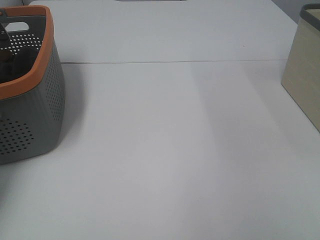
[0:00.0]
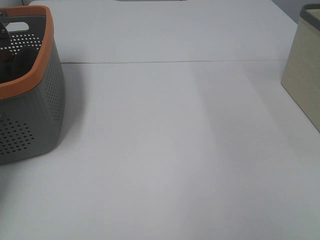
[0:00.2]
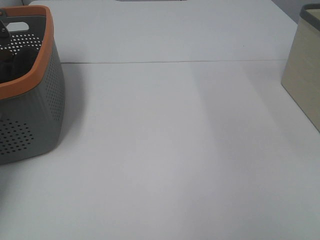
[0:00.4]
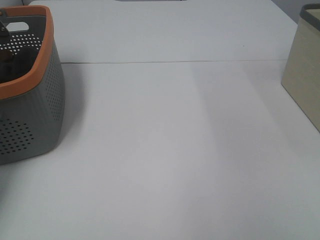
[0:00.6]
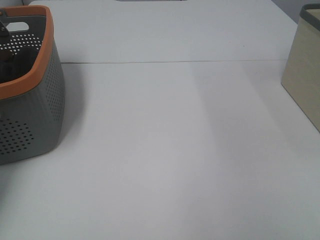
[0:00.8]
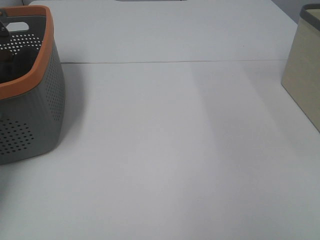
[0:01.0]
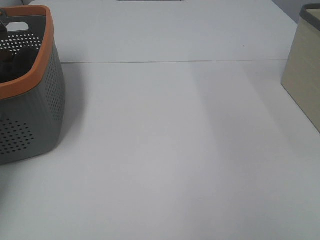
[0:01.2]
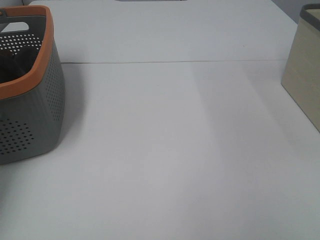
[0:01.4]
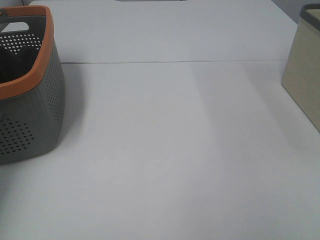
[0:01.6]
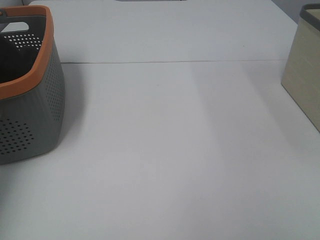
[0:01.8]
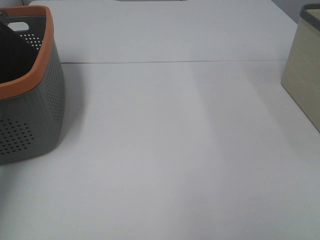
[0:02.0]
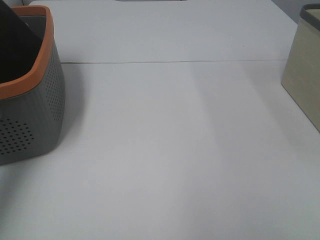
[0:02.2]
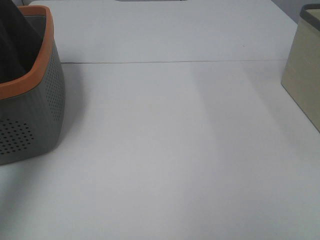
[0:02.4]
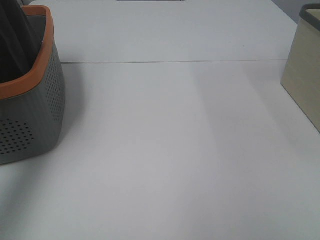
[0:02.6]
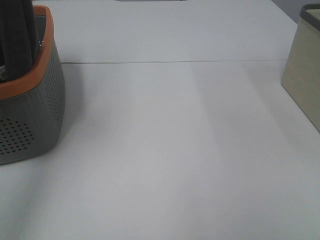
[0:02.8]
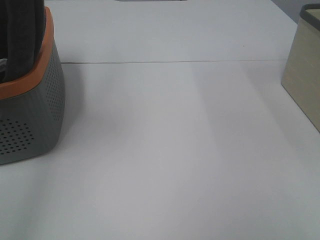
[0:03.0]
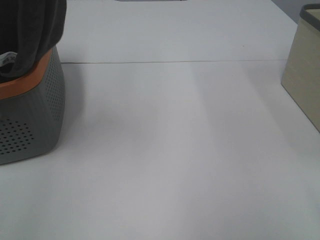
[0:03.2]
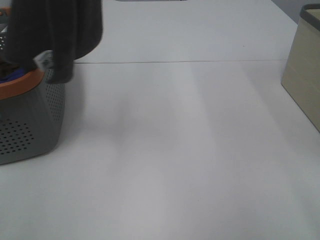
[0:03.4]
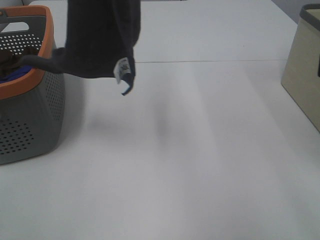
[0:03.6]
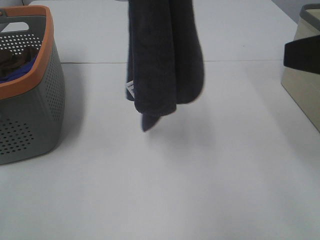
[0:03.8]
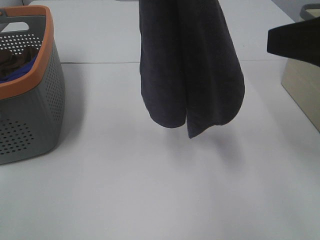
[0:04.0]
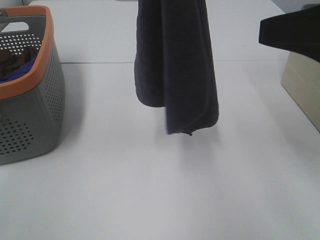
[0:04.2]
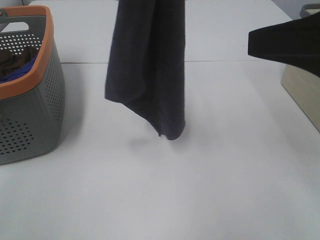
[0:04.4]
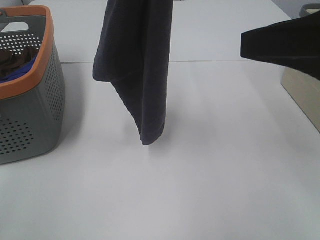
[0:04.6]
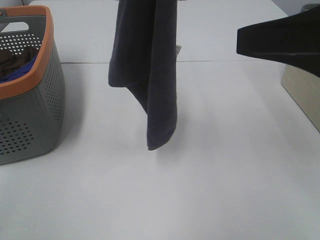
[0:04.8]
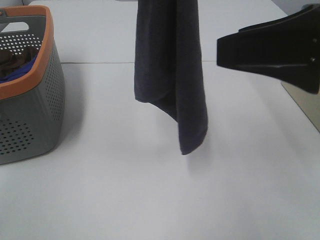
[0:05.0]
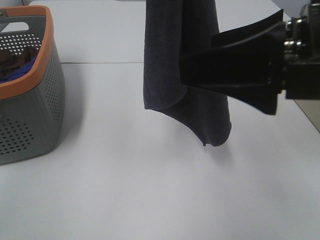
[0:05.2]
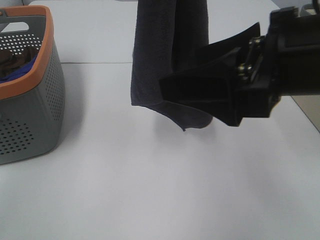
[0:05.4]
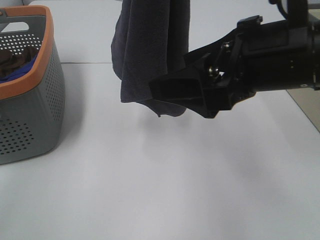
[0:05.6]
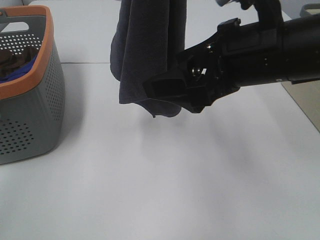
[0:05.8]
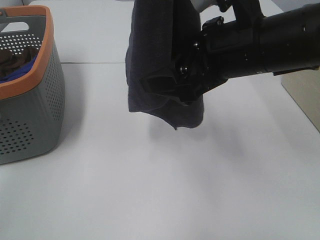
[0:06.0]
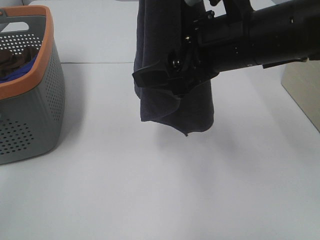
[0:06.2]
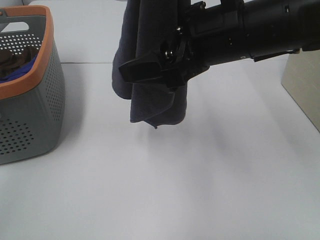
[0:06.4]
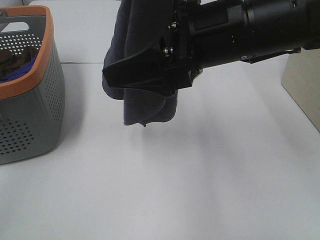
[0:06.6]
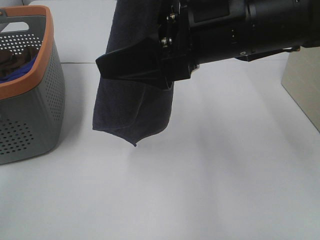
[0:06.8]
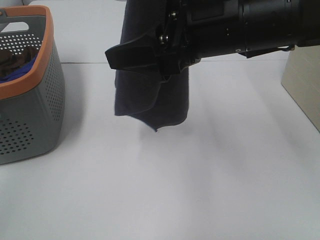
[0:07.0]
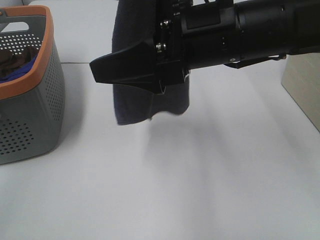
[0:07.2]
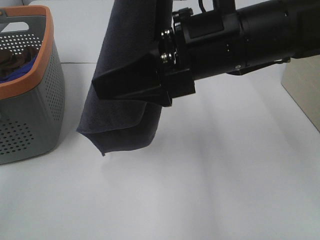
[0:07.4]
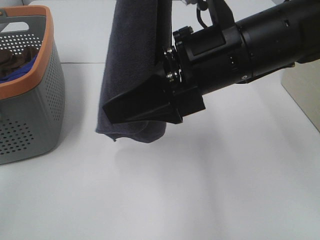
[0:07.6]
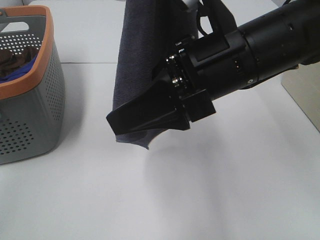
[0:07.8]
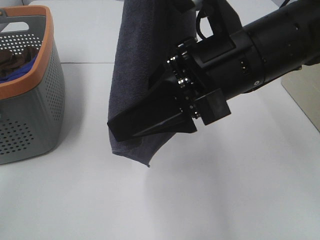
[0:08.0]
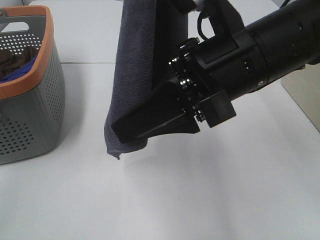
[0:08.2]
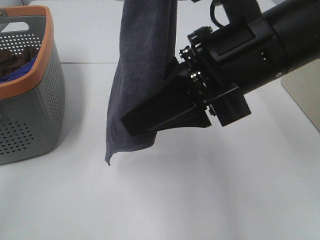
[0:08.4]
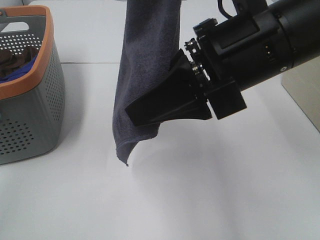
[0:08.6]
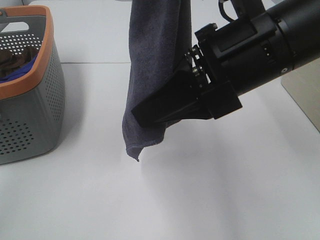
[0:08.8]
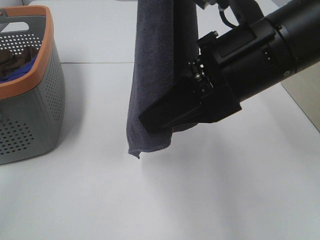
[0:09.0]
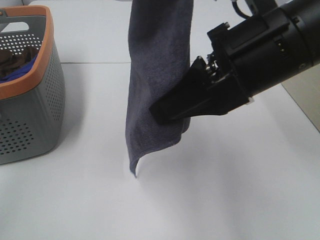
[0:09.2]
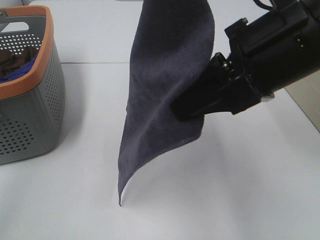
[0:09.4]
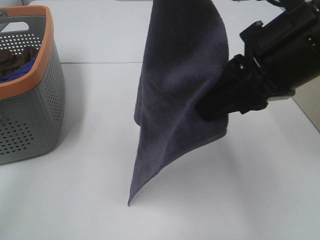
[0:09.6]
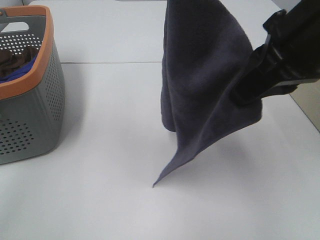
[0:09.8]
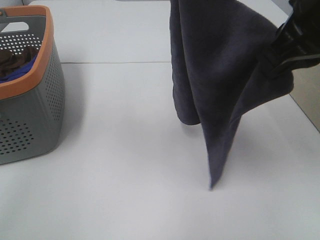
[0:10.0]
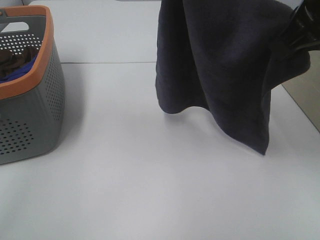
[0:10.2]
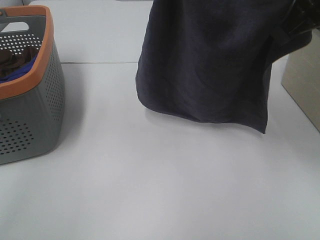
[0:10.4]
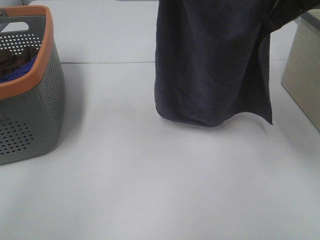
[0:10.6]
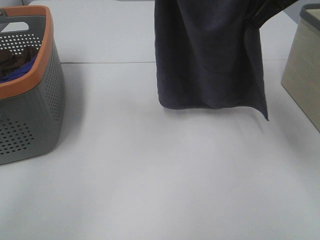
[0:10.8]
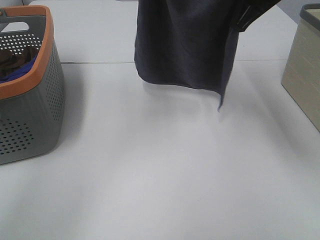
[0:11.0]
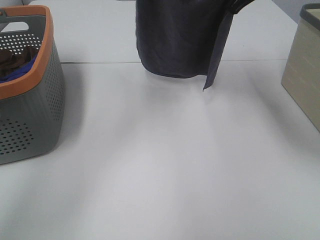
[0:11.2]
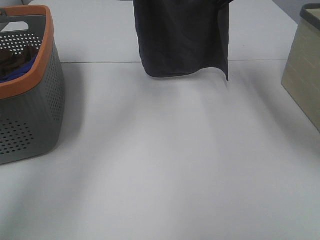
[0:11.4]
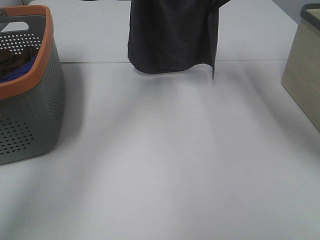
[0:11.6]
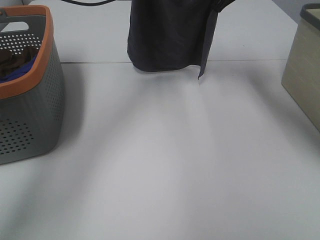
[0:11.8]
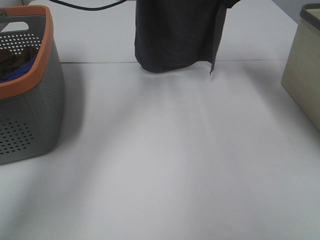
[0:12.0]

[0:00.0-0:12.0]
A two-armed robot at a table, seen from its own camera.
Task of the whole recording: Remove the towel and place it.
Step, 0:02.0 to 0:07.8: Right hand: grab a corner of the grey towel and straighten it.
Step, 0:08.0 to 0:10.6: Right hand: spread the grey towel flat on the table.
Step, 0:08.0 to 0:11.0: Left hand: spread the grey towel flat on the table.
0:01.6 to 0:03.0: The left gripper shifts about 30 cm upward, to the right and backward.
0:03.0 to 0:04.4: The left gripper is displaced to the right by approximately 15 cm; the right gripper shifts roughly 15 cm forward.
0:04.4 to 0:06.0: The right gripper moves to the left, forward and downward, roughly 15 cm.
0:07.6 to 0:09.0: The right gripper closes.
0:09.0 to 0:10.4: The right gripper heads to the right and upward, covering about 10 cm. Meanwhile the left gripper goes some 10 cm downward and forward.
0:10.4 to 0:12.0: The left gripper goes some 20 cm forward and downward, while the right gripper moves forward, some 25 cm.

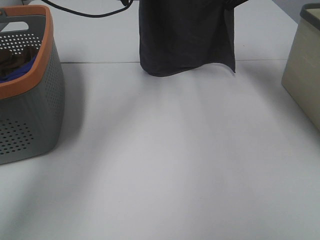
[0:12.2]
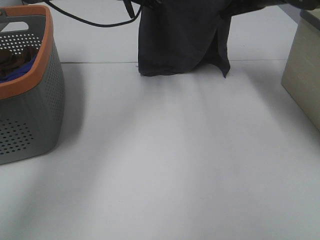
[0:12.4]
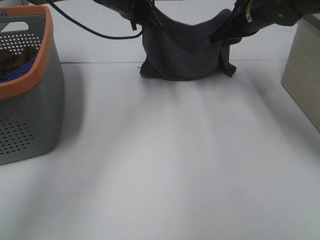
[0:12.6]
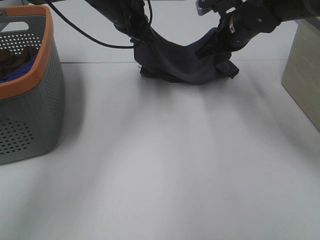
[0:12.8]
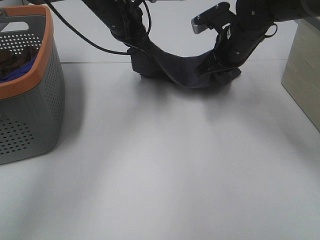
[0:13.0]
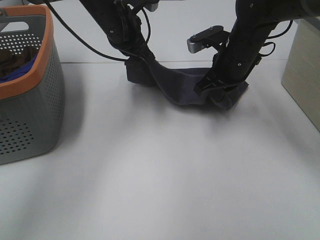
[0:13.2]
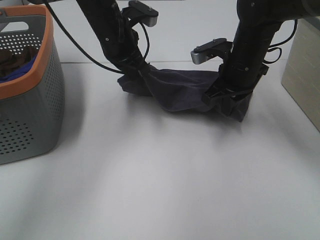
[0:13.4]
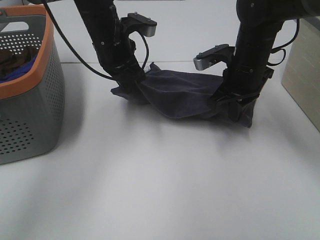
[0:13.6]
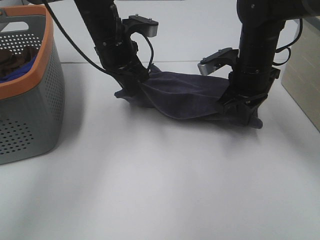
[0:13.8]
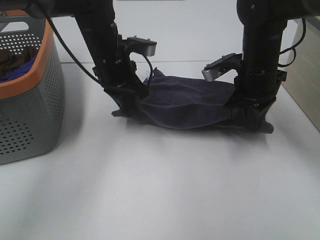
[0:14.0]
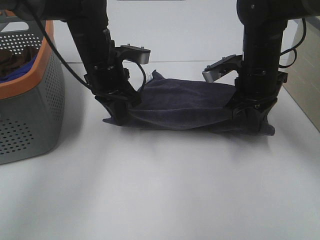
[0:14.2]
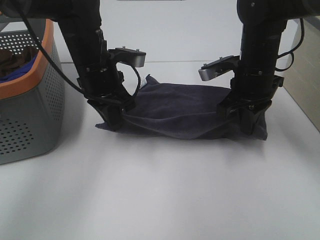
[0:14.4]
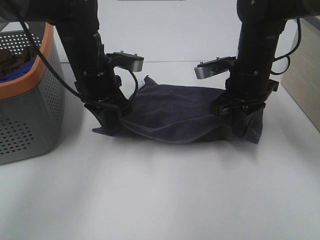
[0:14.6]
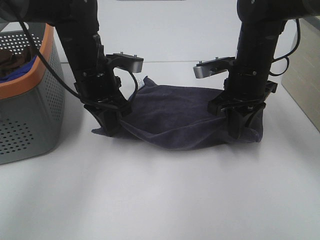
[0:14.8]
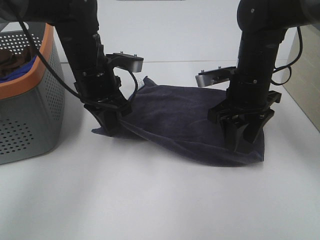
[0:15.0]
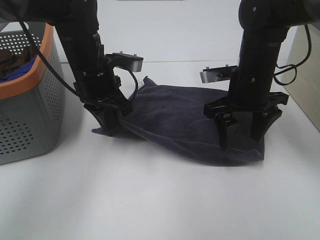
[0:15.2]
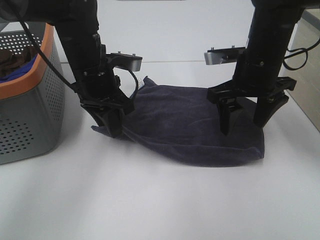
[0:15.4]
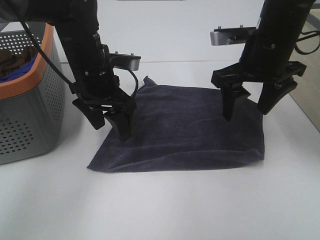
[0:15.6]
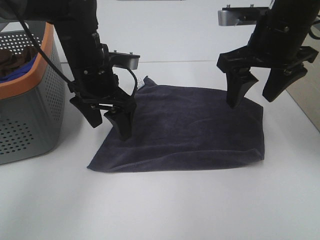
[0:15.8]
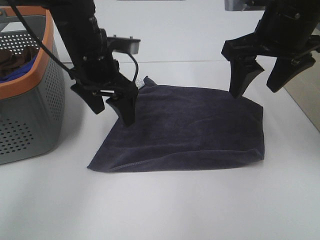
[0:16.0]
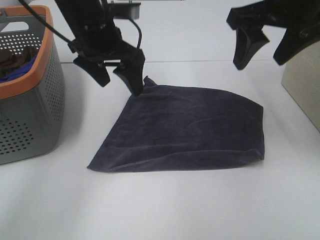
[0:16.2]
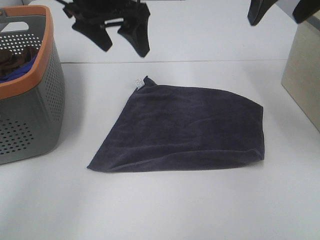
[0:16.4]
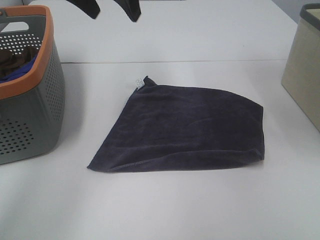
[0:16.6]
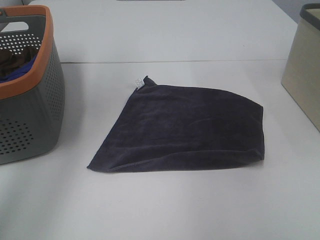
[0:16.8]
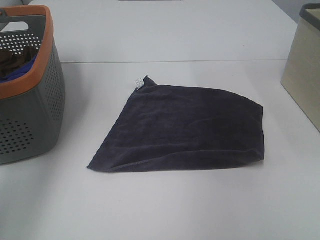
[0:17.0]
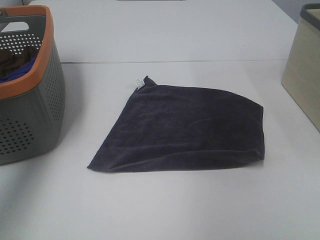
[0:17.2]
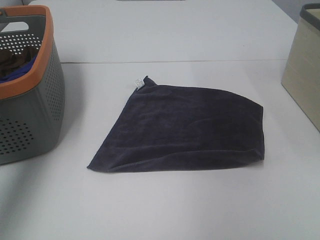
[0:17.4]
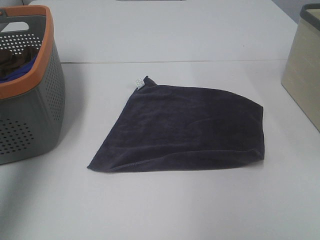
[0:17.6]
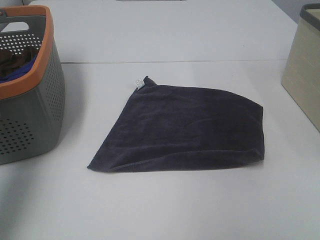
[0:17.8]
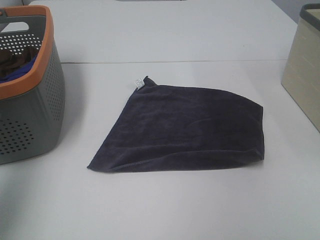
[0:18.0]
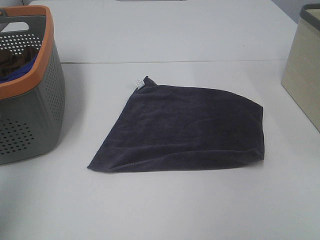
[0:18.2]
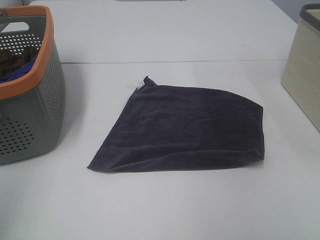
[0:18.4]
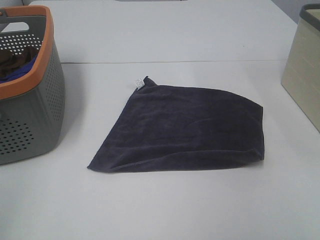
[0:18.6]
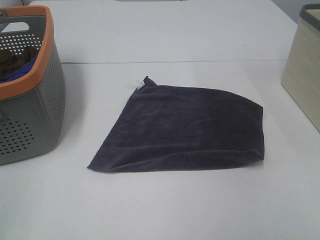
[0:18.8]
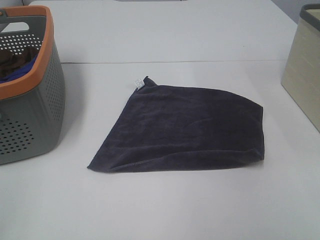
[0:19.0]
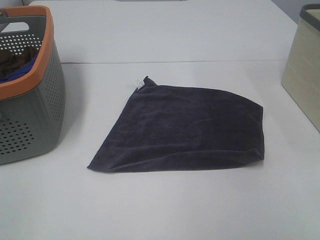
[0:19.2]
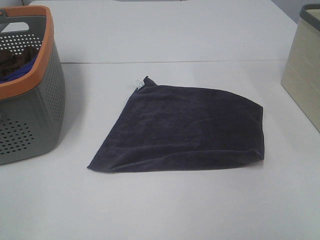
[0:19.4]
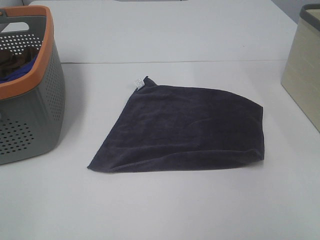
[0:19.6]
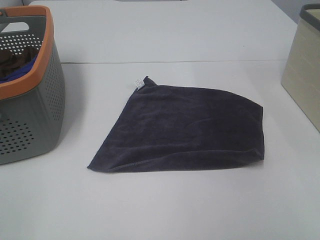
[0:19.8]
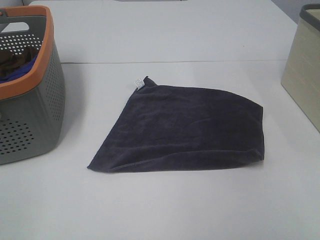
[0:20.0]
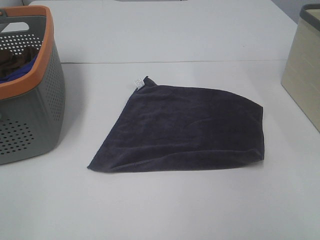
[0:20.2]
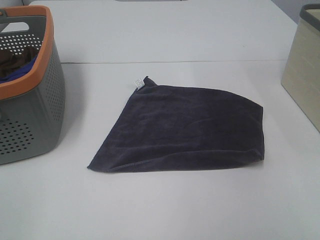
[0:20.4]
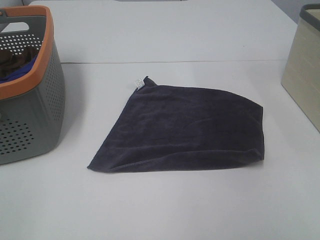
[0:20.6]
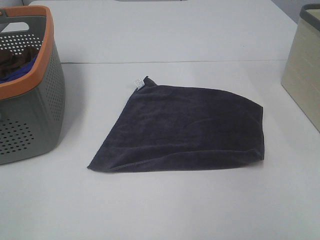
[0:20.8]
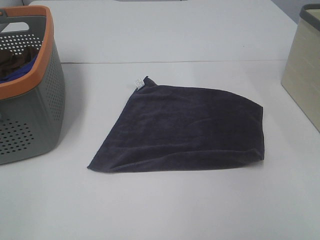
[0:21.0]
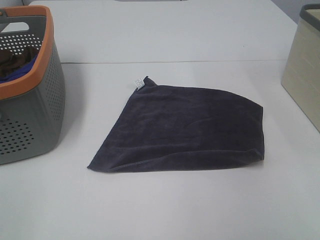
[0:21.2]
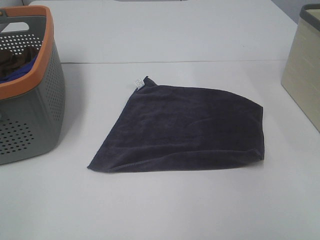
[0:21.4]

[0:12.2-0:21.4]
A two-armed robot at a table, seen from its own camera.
Task of the whole recording: Remove the towel and place it.
0:12.2 to 0:13.8: The grippers both shift backward and downward by some 15 cm.
0:13.8 to 0:15.2: The left gripper goes some 5 cm backward. Meanwhile the right gripper opens its fingers.
0:15.2 to 0:16.8: The left gripper moves upward and to the left, about 20 cm, and opens its fingers, while the right gripper goes approximately 30 cm upward and to the right.
0:16.8 to 0:18.4: The right gripper travels backward by about 30 cm, while the left gripper is displaced backward and to the left by roughly 35 cm.
0:19.8 to 0:21.4: Neither gripper changes place.

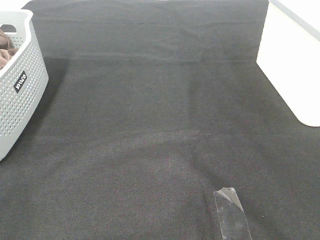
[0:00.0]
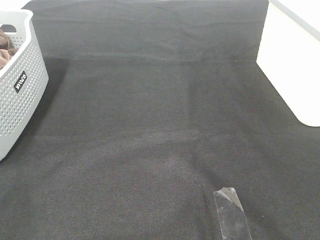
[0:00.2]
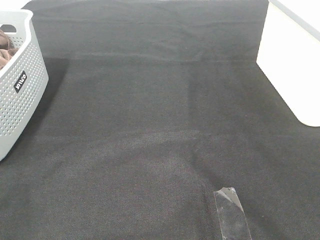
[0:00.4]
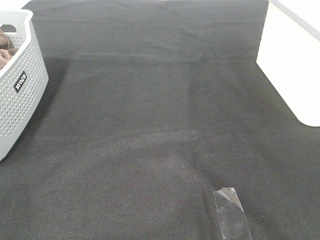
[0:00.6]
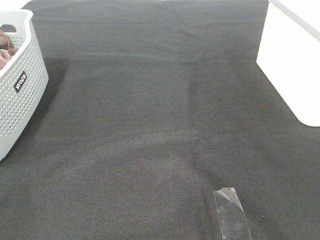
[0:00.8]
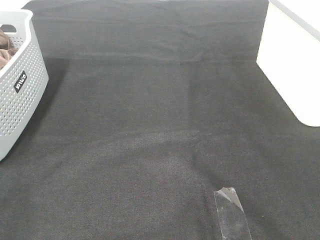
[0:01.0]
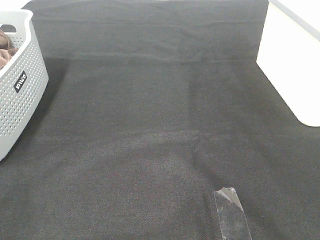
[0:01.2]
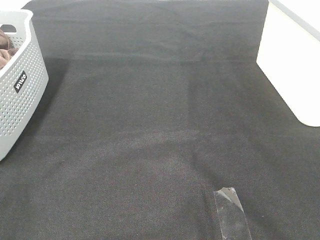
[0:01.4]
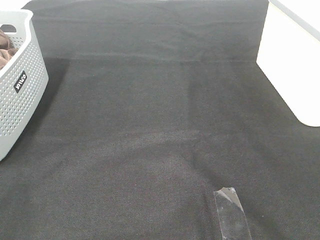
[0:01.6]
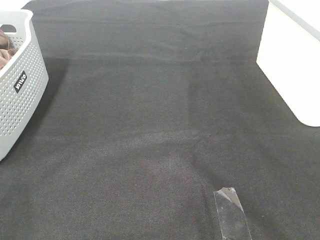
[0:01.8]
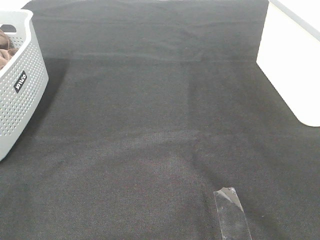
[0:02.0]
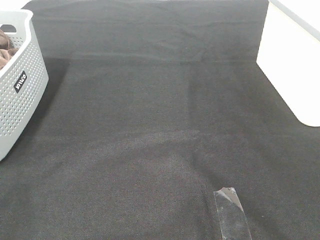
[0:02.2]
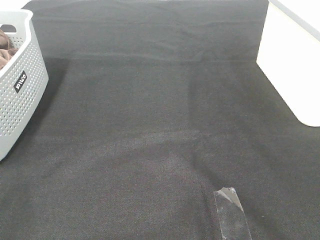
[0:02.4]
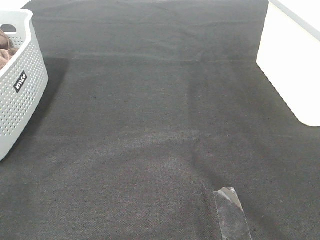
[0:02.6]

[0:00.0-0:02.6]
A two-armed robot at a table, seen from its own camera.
Task of the whole recording: Remove the towel and place it.
0:00.0 to 0:01.2: Both grippers stay put.
